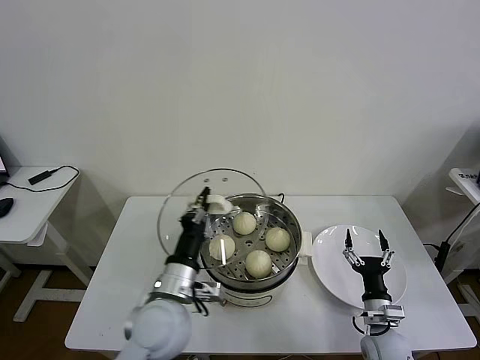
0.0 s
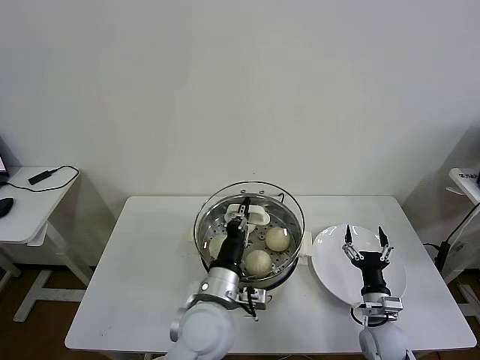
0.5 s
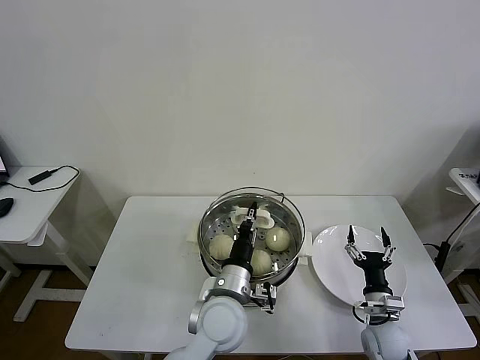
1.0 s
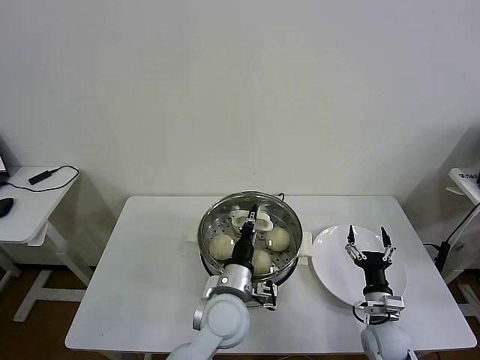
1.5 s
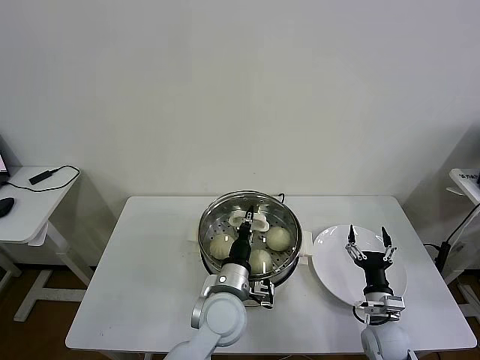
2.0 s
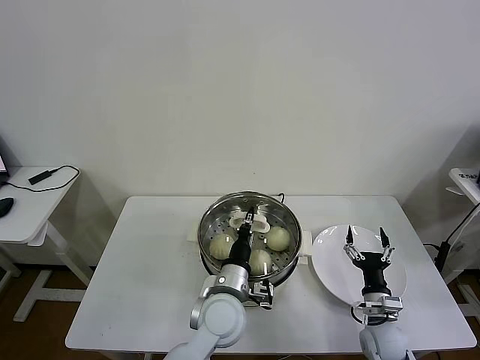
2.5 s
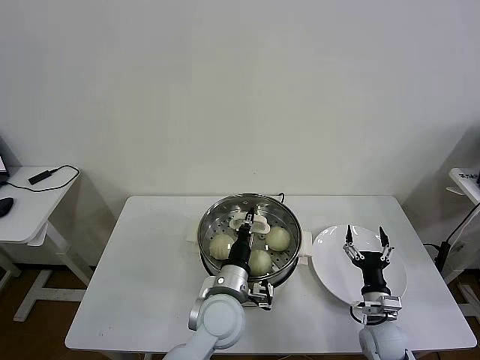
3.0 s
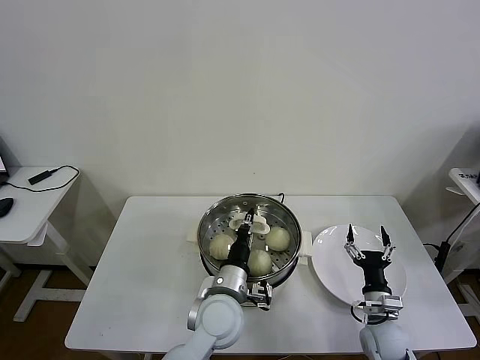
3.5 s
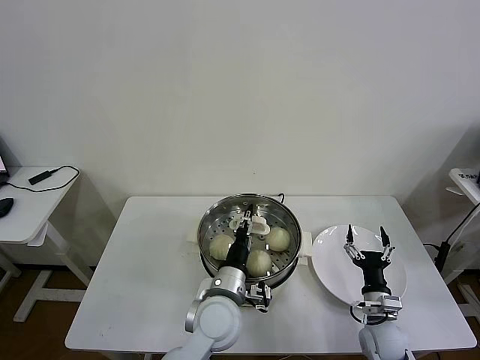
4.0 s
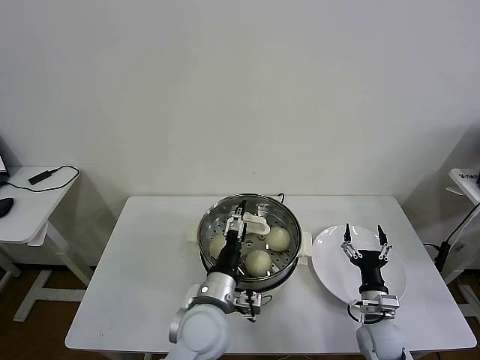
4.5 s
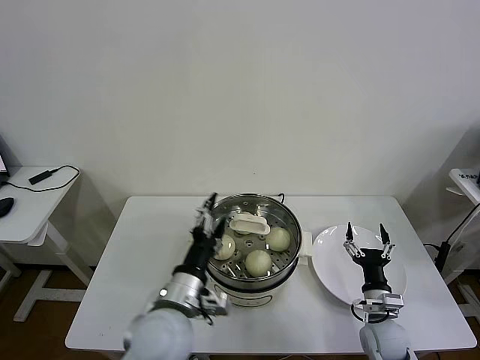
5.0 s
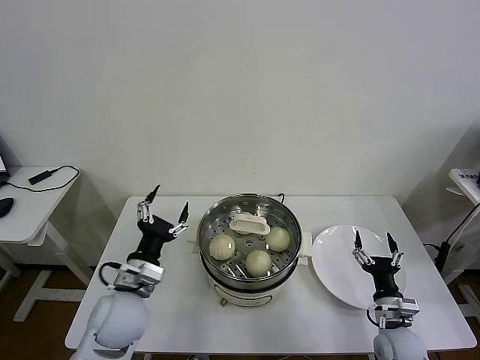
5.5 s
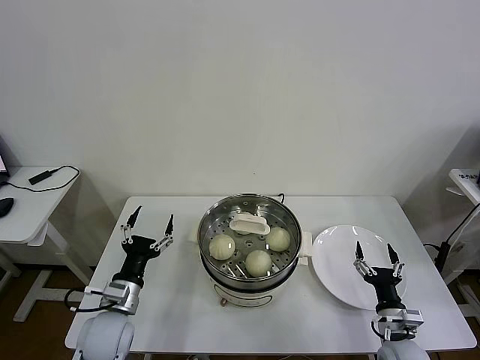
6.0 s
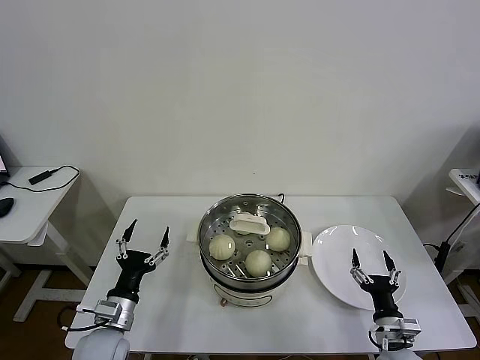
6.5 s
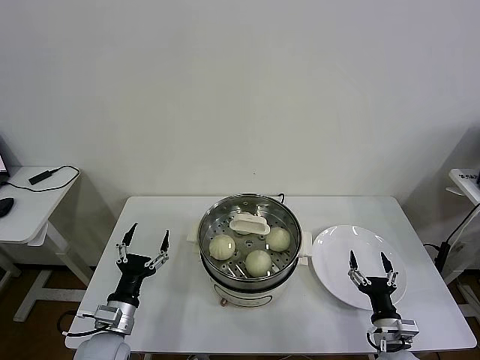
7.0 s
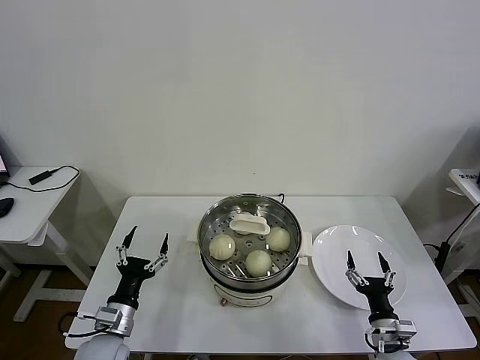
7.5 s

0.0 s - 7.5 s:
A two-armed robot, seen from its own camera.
Task of the whole recording: take steamed baozi put them in steamer then cover it.
Step, 0.0 s - 4.0 s: Place the pot lid on the steamer with left gripper.
0.0 s - 2.0 s: The left gripper is displaced to the right and downward by roughly 10 cm.
2.0 s - 4.0 s: Neither gripper changes place.
4.0 s - 5.5 s: The left gripper is displaced to the left by some 15 cm, and opens up.
5.5 s - 7.5 s: The left gripper moves downward and to the left, approximately 10 cm.

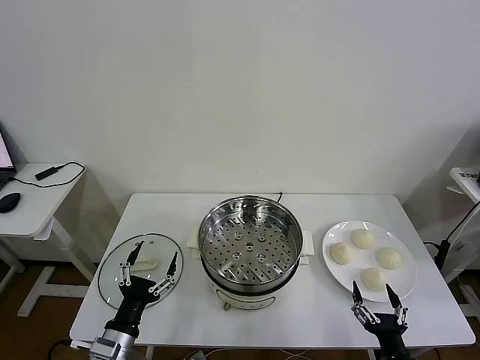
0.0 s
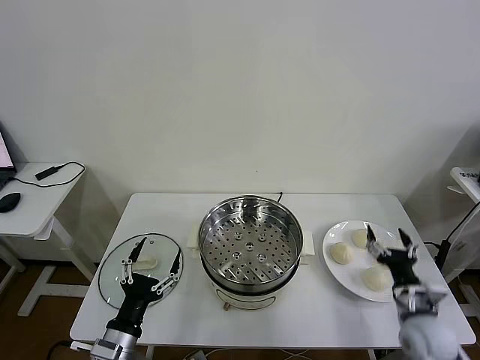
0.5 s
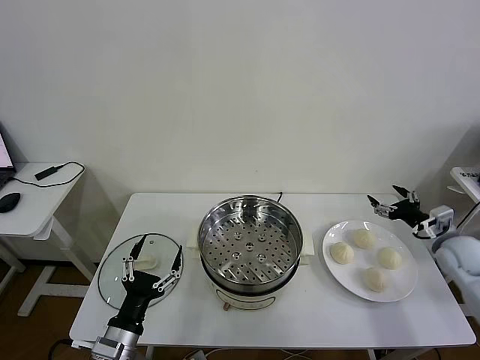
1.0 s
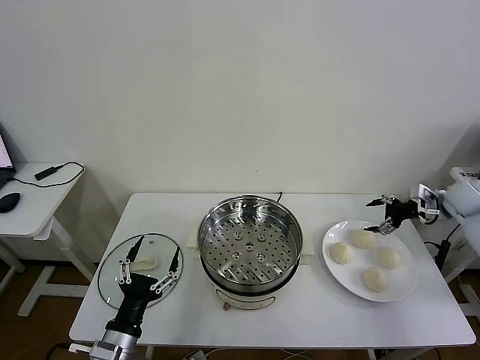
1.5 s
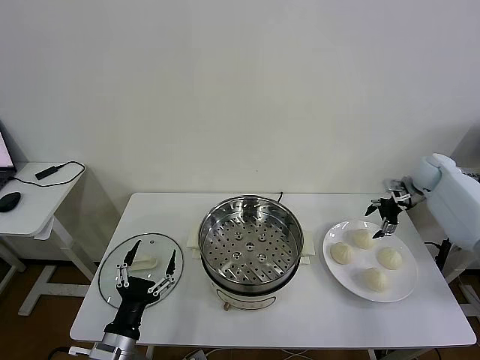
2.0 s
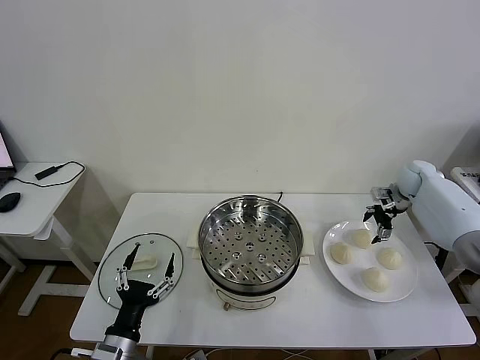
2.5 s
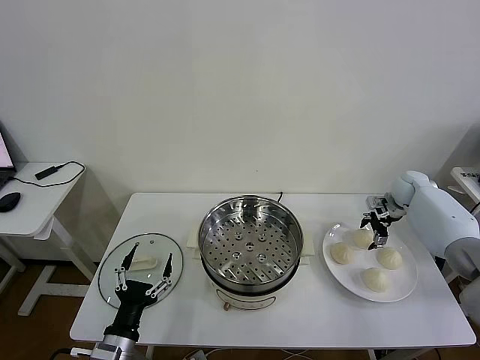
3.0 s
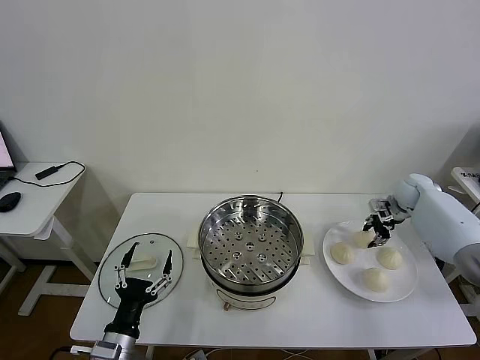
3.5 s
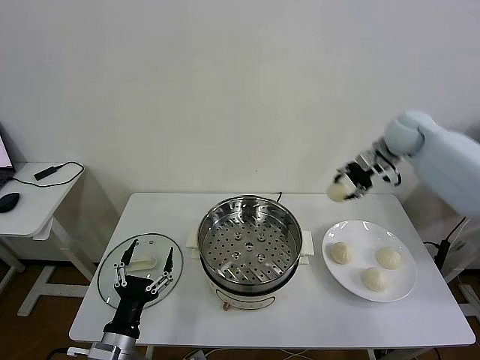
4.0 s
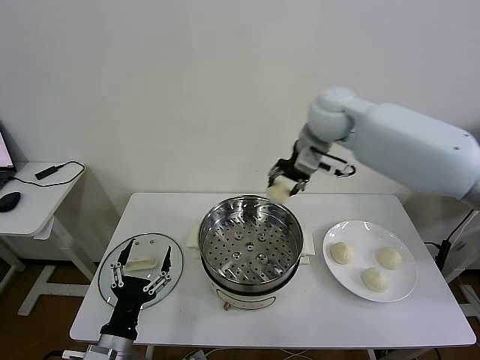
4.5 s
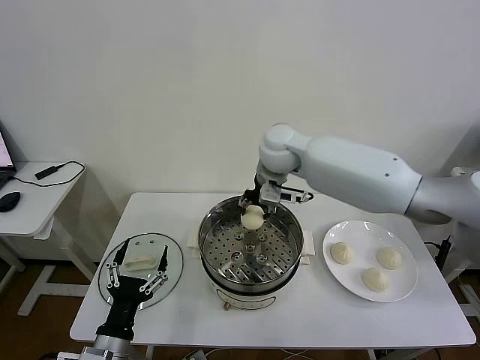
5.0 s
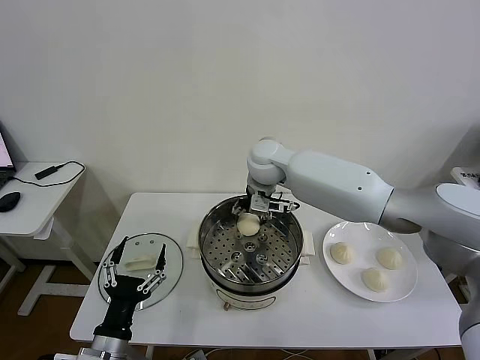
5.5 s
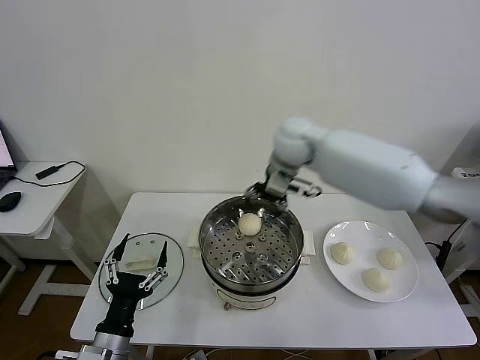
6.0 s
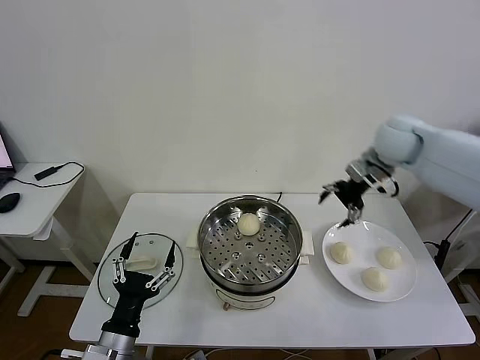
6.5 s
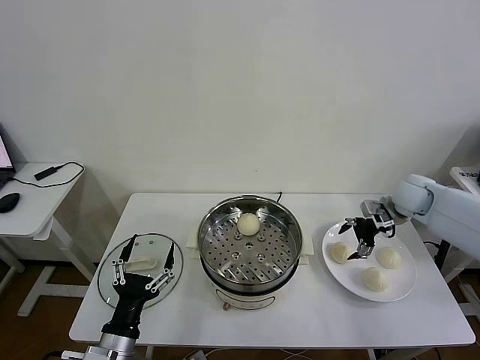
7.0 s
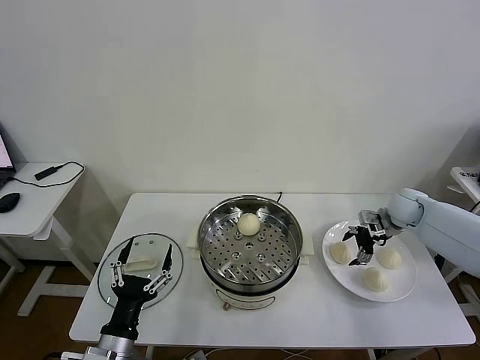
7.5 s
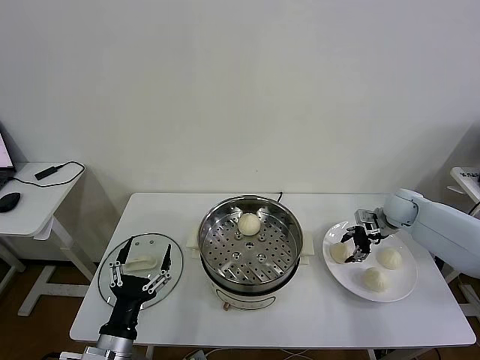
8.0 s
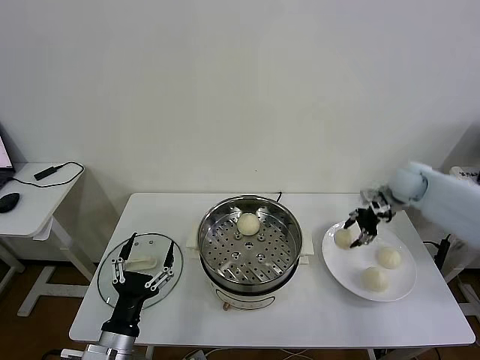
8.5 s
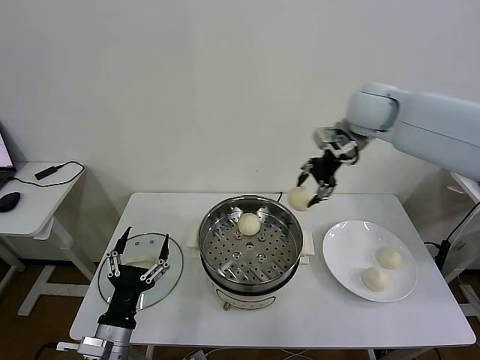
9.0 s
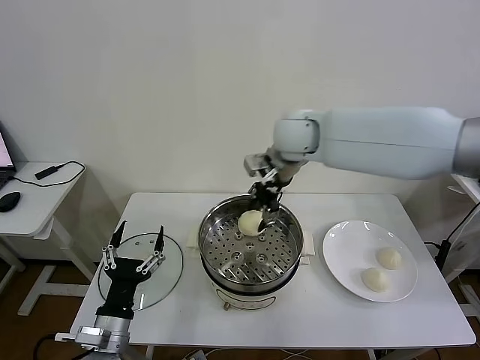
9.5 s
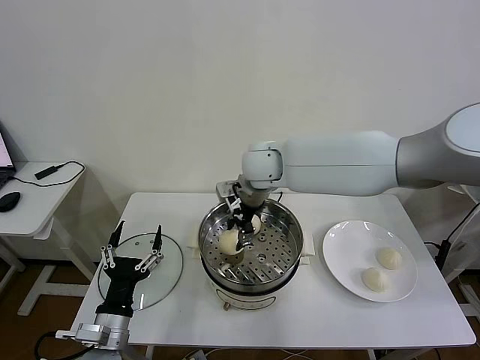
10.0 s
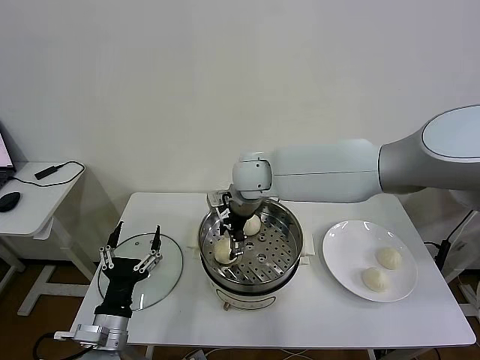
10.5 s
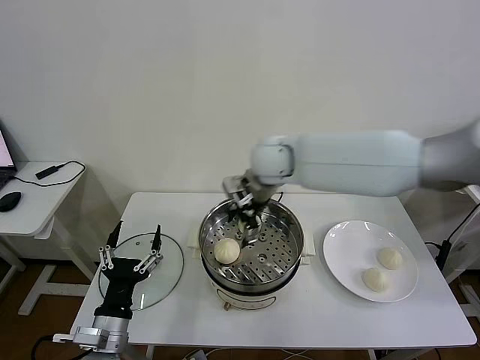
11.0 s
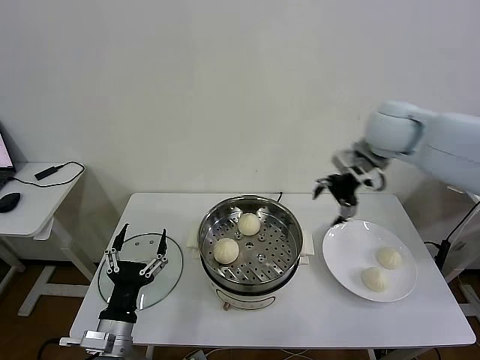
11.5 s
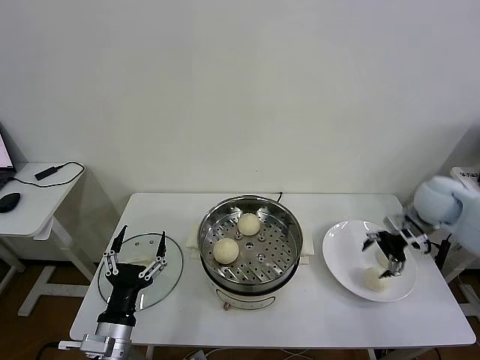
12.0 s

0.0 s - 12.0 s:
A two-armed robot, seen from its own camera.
Task of the whole recording: take steamed baozi put them in steamer then cover it.
Step, 0.0 s - 3.0 s: Grasp the baozi in the plate with right gripper.
Step, 3.5 s - 5.5 s: Place the baozi on the steamer with right gripper.
Step, 6.0 s - 8.0 s: Grasp the baozi in the plate with right gripper.
Step, 8.5 s - 10.5 s: Place the baozi on the steamer with right gripper.
2.0 s - 4.0 s: The right gripper heads upward and to the left, covering roughly 25 cm, and closes up.
4.0 s - 6.0 s: The right gripper heads to the left, covering some 15 cm, and opens.
6.0 s - 8.0 s: The right gripper travels to the right and downward by approximately 35 cm, and closes its fingers.
8.0 s - 10.0 s: The right gripper is displaced to the left by roughly 40 cm.
10.0 s - 12.0 s: The right gripper travels to the right by some 40 cm, and opens its fingers.

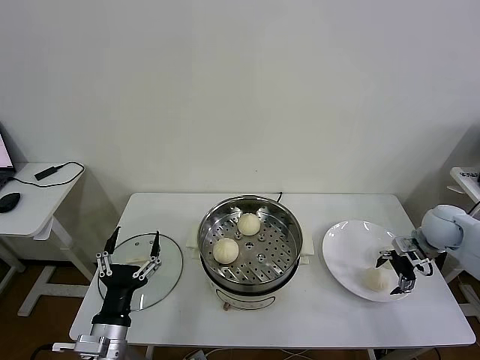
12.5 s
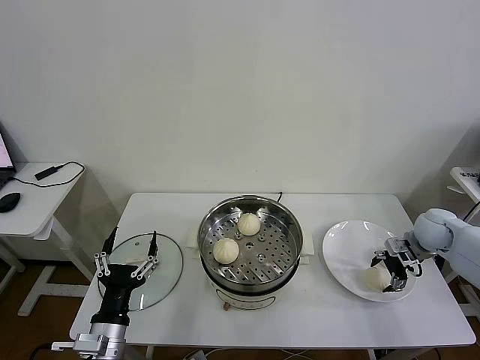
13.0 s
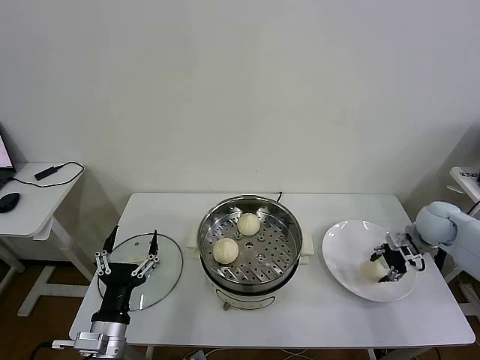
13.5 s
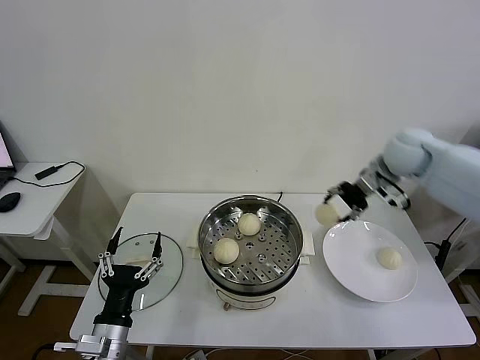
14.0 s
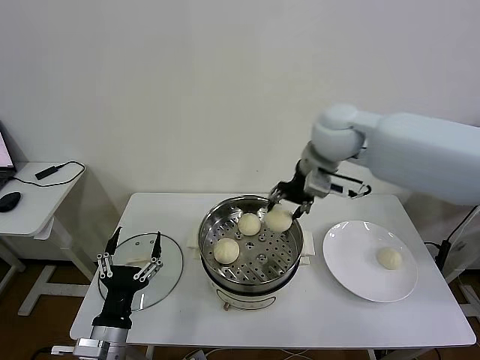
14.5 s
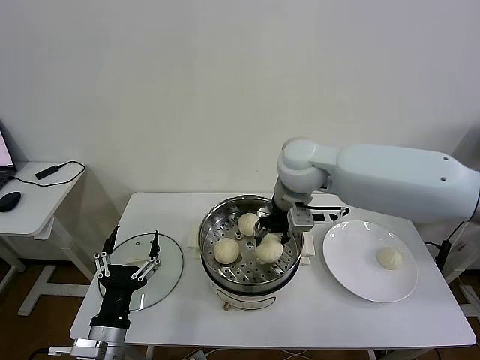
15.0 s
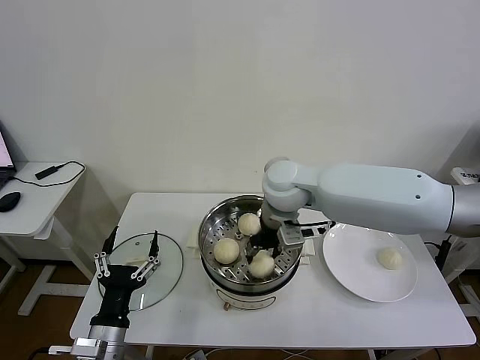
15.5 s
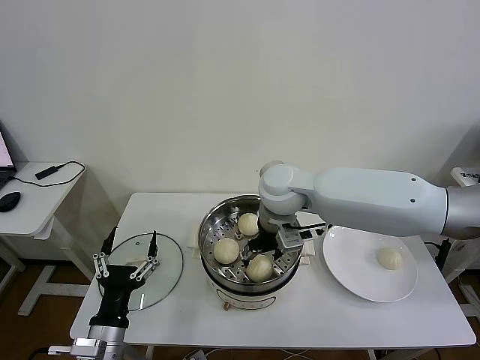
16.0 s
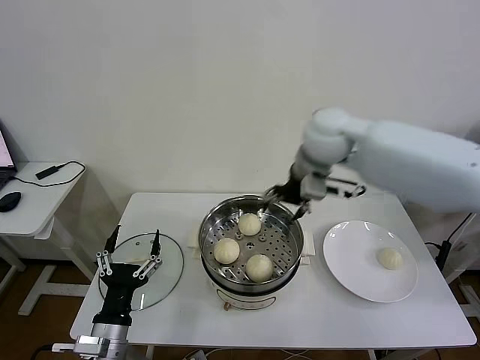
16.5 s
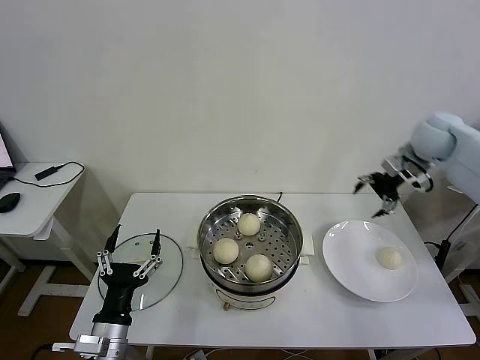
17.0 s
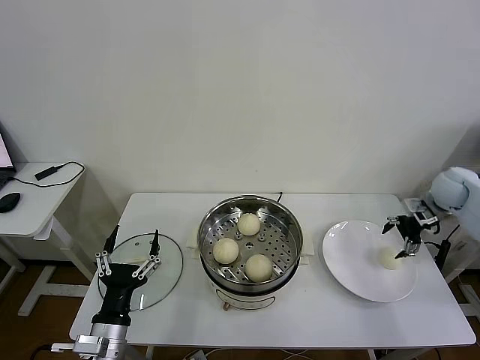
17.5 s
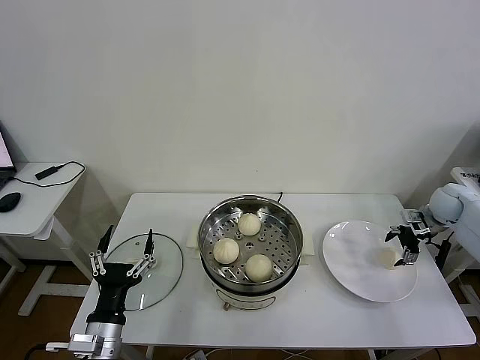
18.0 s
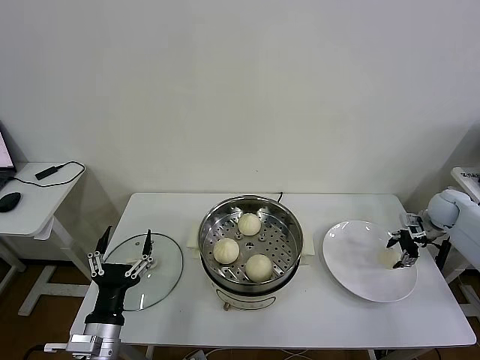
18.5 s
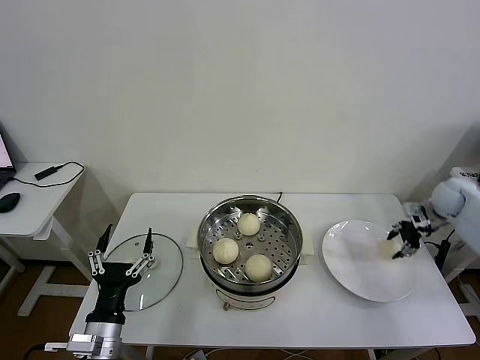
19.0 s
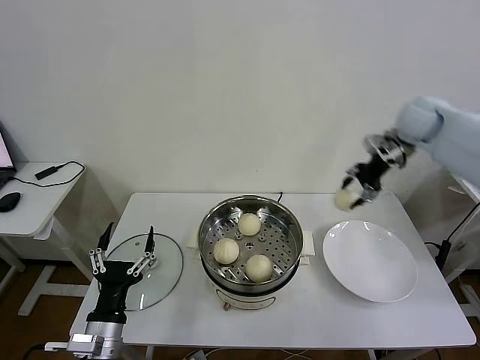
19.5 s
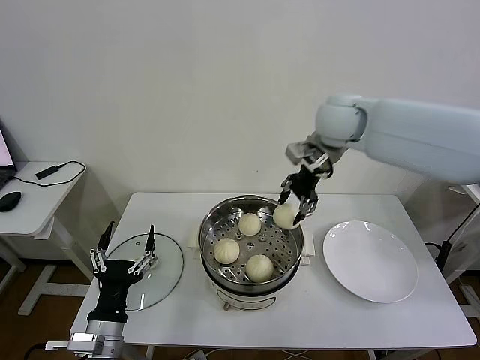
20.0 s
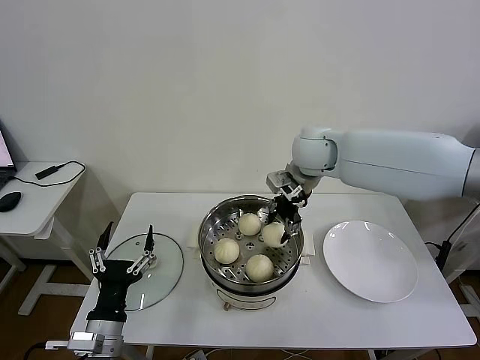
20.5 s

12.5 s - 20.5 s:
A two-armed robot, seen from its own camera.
Task of the whole recording: take steamed baozi put them in steamer then cover it.
Step, 13.5 s - 15.5 s: Place the baozi on the steamer with right gripper.
Step, 16.0 s - 18.5 s: Grasp the baozi in the plate with right gripper.
12.5 s - 14.5 s: The right gripper moves to the left and upward, roughly 40 cm, and closes.
14.5 s - 16.5 s: The right gripper moves about 10 cm to the left and comes back, and opens up.
16.5 s - 18.5 s: The right gripper travels to the right and downward by about 40 cm, and closes its fingers.
18.5 s - 20.5 s: The right gripper shifts some 40 cm to the left and upward.
